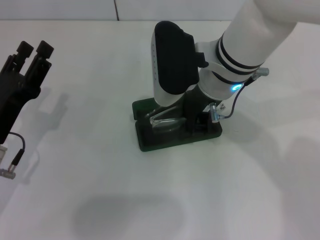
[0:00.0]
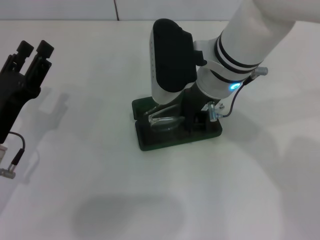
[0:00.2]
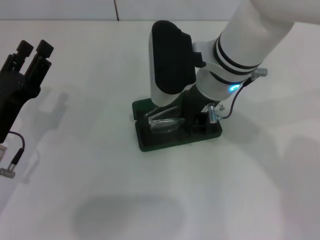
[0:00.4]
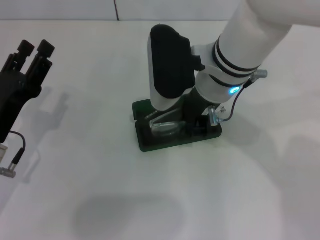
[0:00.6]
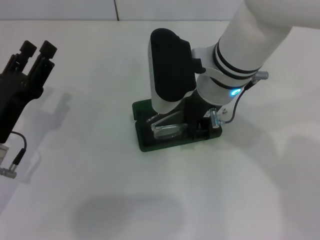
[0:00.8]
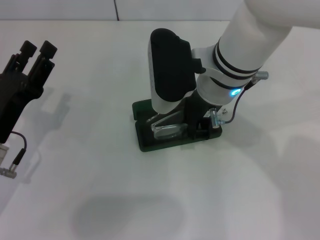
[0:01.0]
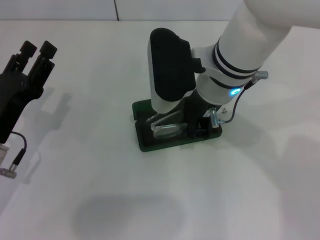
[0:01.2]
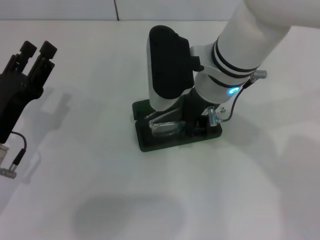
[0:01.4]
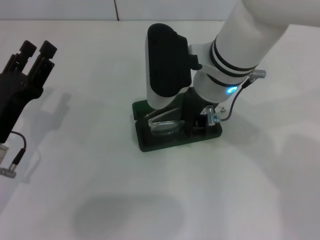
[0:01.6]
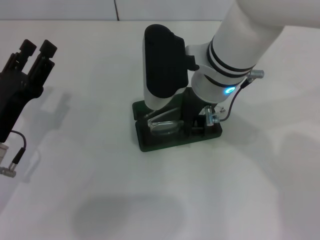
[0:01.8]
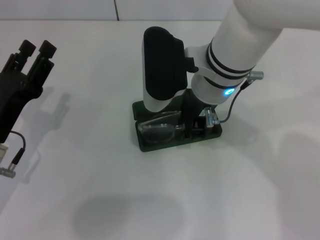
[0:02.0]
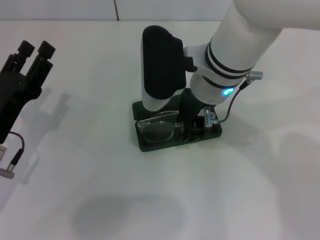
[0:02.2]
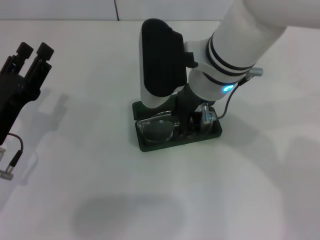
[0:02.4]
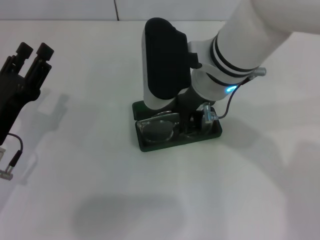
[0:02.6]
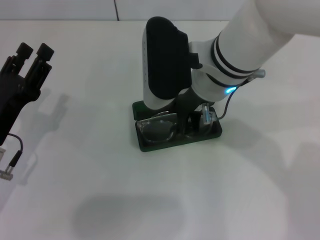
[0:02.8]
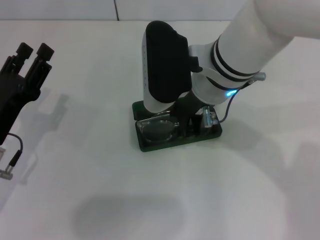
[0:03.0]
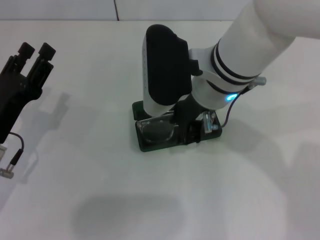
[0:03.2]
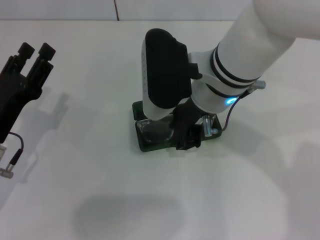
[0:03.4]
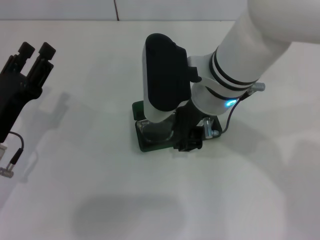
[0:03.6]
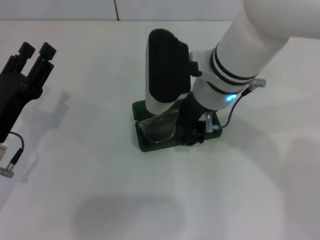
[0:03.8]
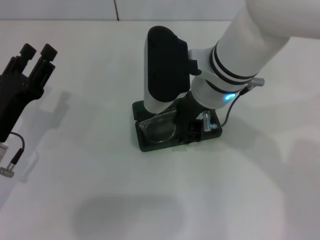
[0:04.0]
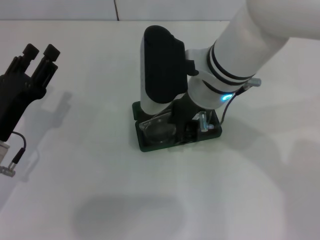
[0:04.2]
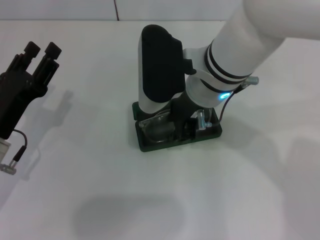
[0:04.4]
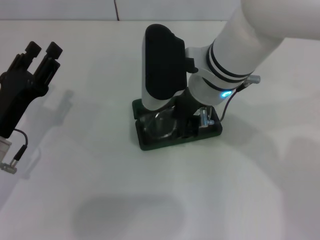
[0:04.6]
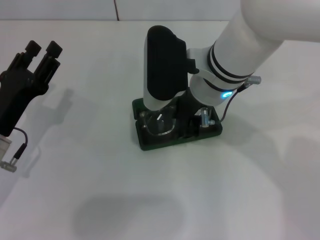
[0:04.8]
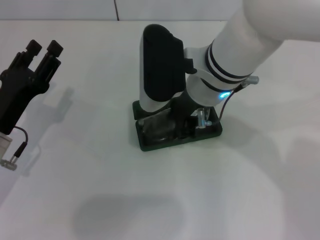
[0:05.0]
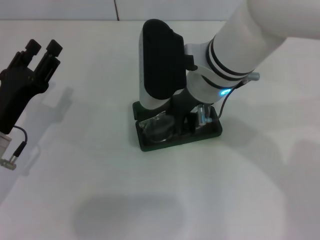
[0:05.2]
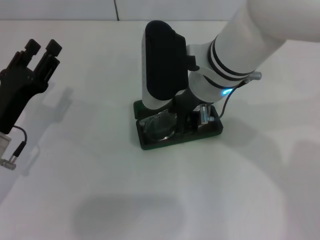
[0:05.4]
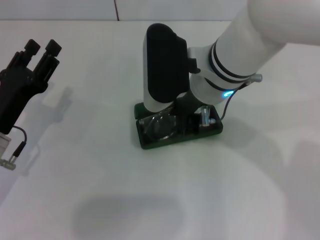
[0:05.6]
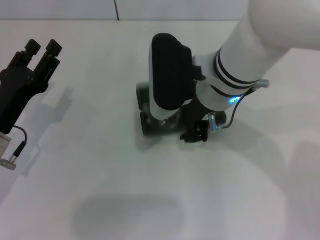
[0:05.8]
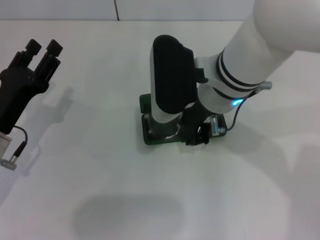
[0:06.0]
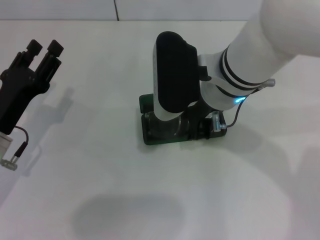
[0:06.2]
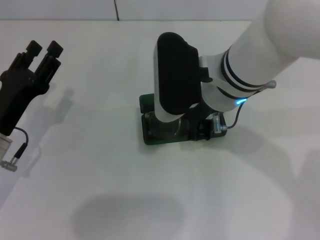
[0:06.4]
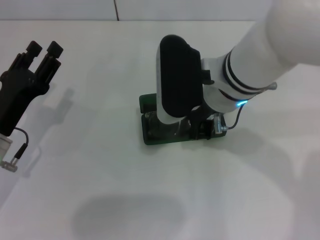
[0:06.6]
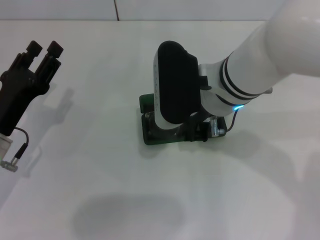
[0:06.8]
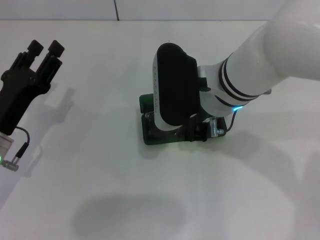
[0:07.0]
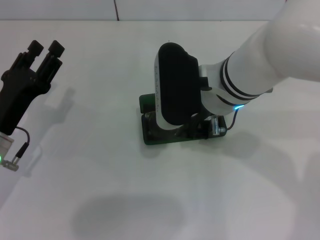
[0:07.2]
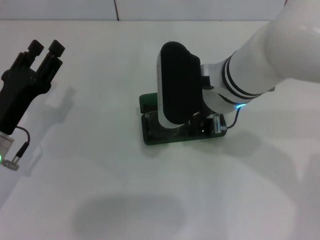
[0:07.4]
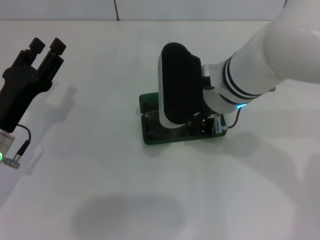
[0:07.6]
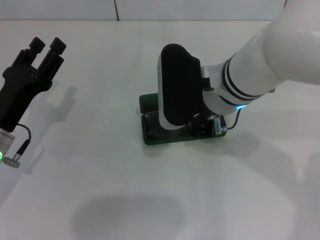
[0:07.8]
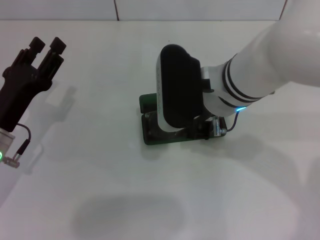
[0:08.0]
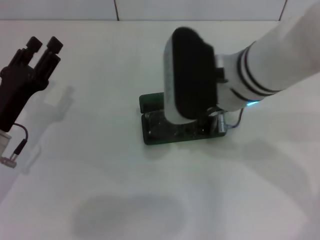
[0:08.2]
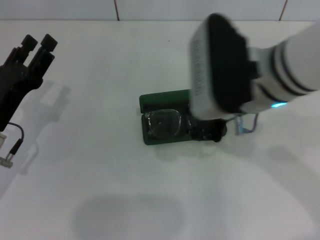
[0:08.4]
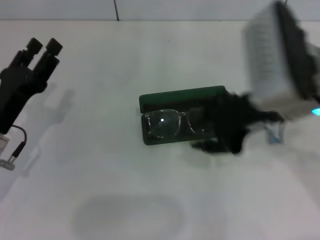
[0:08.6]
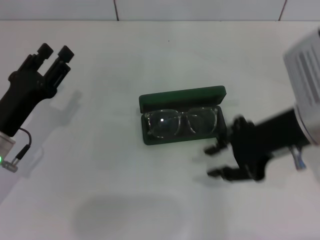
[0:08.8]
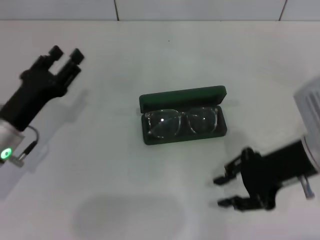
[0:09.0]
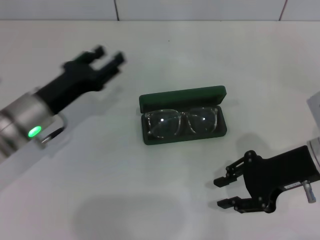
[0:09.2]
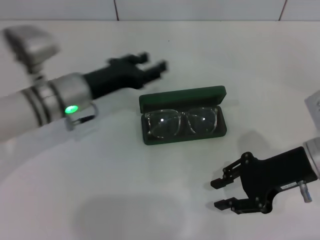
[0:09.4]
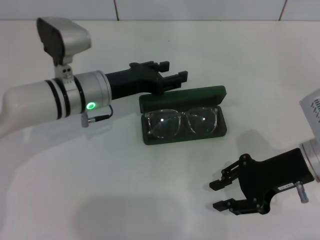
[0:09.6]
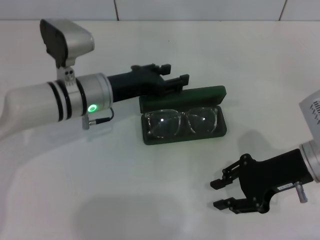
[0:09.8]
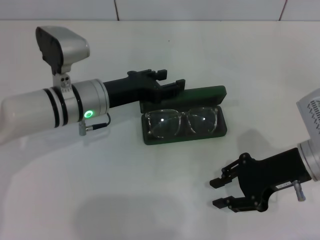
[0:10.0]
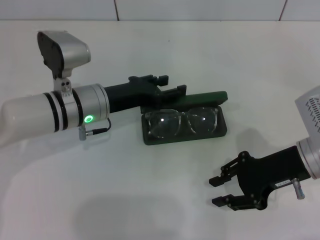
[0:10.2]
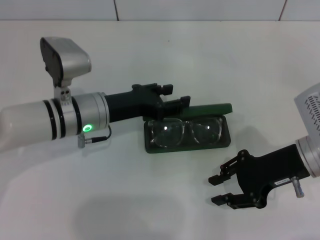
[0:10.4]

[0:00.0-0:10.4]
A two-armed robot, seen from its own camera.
Step, 0.0 to 5.0 s: Put the glasses into the case with your right hand.
0.0 to 1.4 s: Both grippers stay put.
1.4 to 7.4 s: The grippers stay close to where they were, moving slightly.
7.4 to 9.0 s: The right gripper is displaced to the right by about 15 cm.
9.0 to 10.4 s: The left gripper travels to the right and forward by roughly 15 cm.

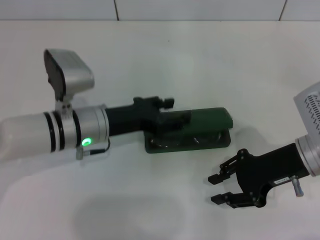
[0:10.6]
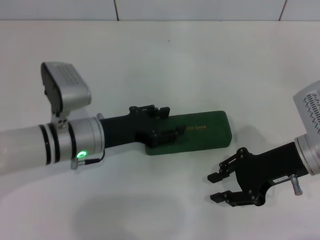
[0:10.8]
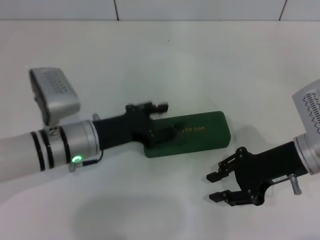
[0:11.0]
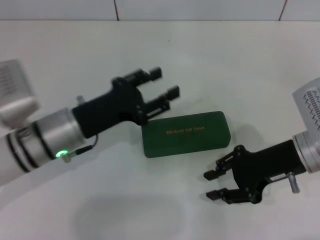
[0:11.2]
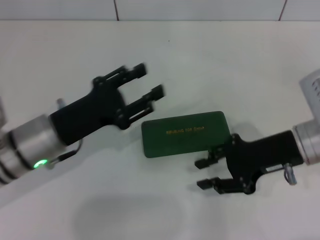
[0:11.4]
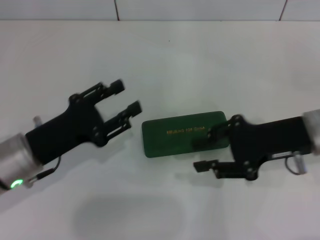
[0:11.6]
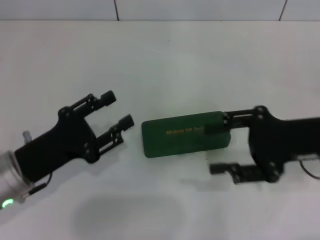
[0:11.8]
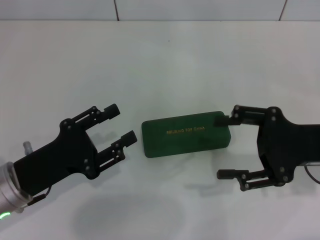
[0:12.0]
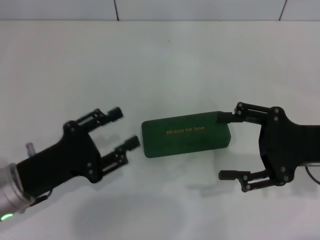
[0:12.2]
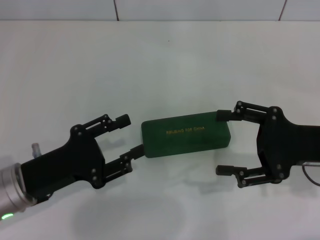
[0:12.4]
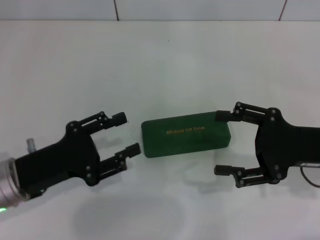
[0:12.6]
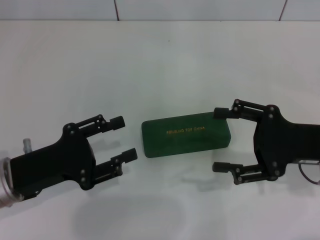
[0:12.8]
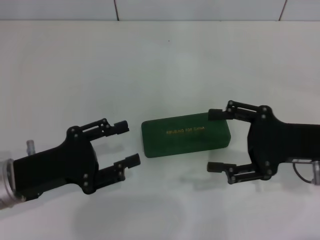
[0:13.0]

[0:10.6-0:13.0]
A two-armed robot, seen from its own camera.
10.6 to 11.8 s: The left gripper heads backward and to the left, covering approximately 15 cm.
11.8 to 13.0 s: The right gripper opens up.

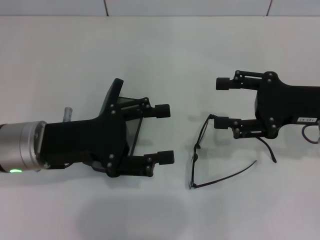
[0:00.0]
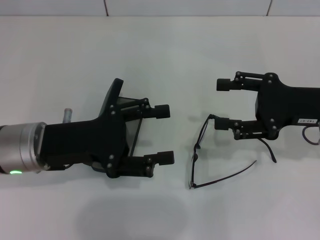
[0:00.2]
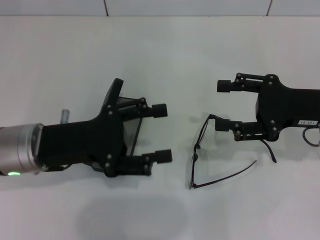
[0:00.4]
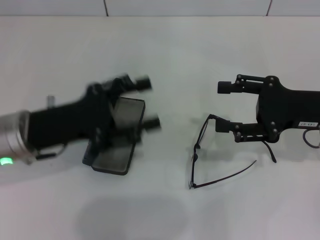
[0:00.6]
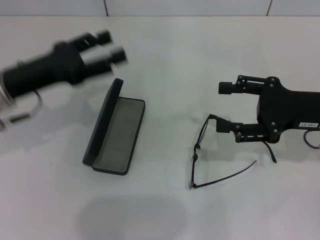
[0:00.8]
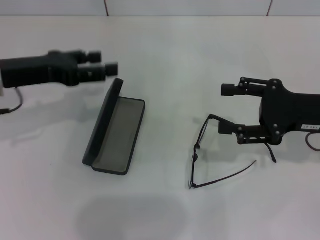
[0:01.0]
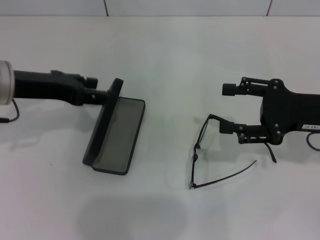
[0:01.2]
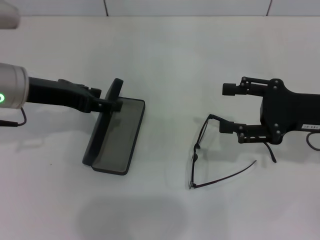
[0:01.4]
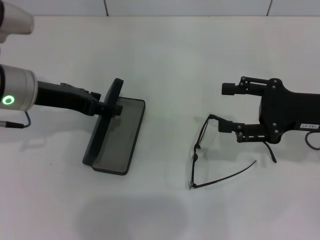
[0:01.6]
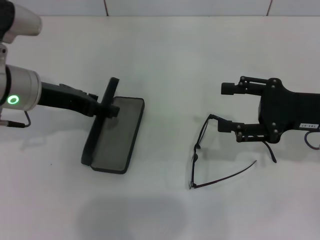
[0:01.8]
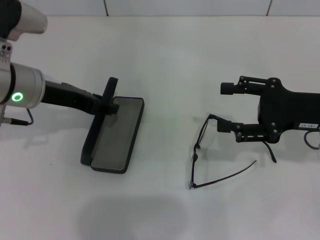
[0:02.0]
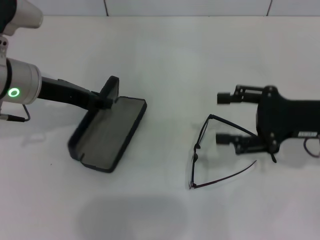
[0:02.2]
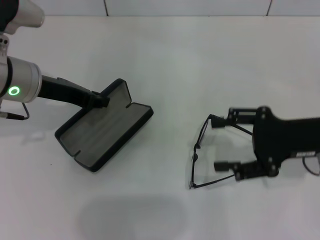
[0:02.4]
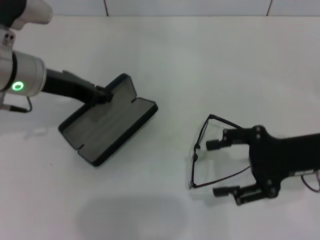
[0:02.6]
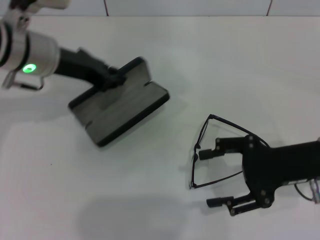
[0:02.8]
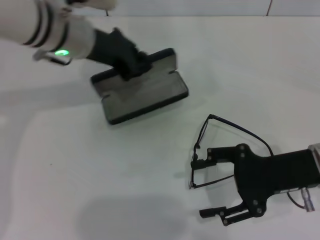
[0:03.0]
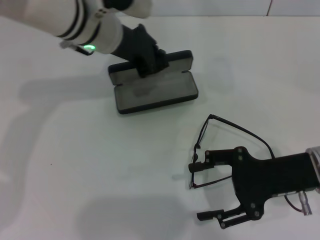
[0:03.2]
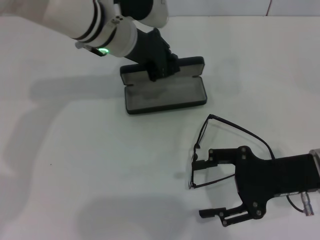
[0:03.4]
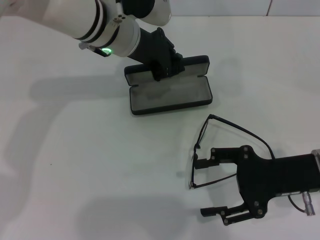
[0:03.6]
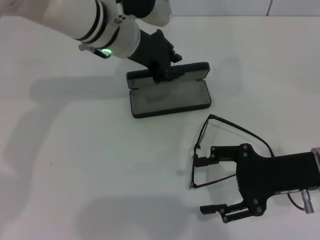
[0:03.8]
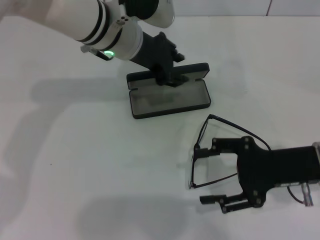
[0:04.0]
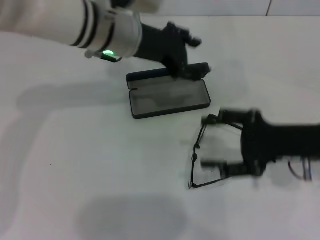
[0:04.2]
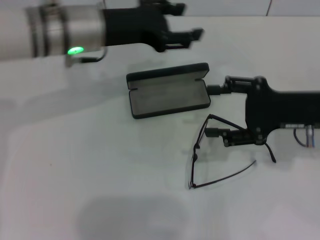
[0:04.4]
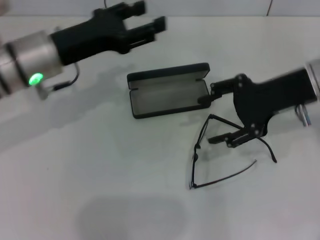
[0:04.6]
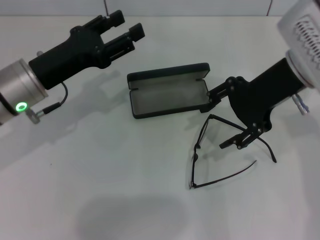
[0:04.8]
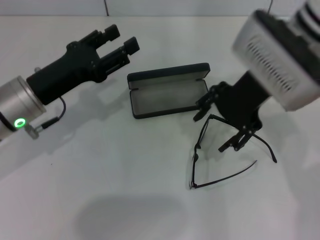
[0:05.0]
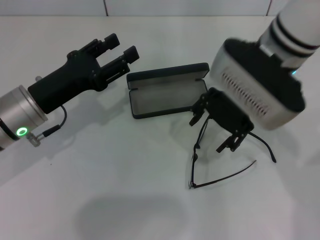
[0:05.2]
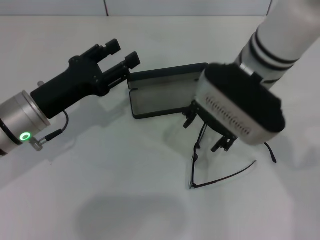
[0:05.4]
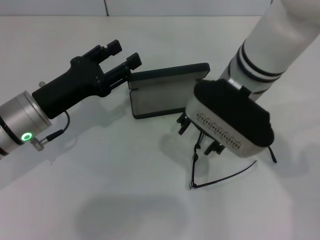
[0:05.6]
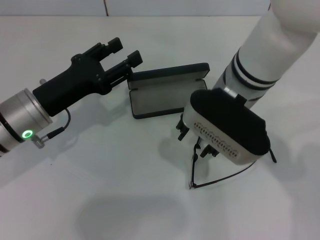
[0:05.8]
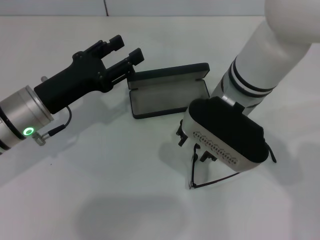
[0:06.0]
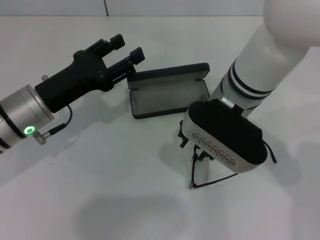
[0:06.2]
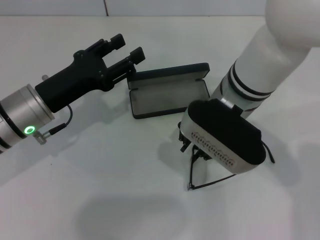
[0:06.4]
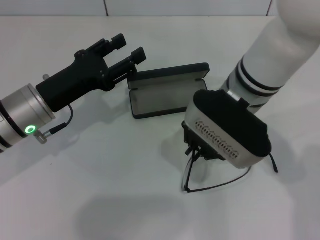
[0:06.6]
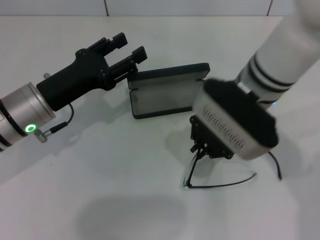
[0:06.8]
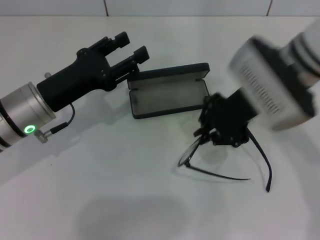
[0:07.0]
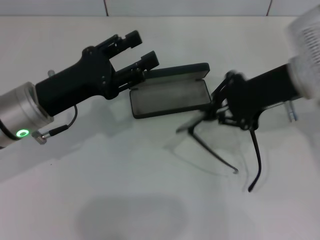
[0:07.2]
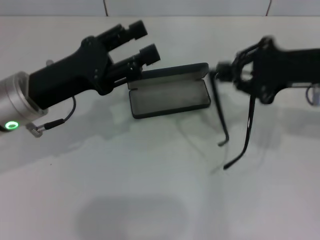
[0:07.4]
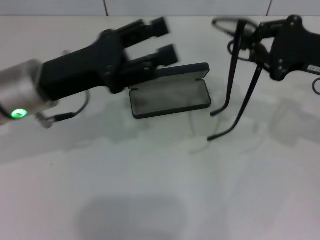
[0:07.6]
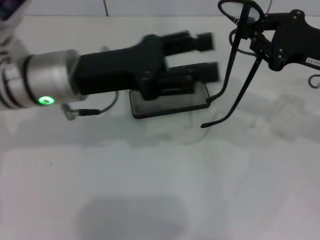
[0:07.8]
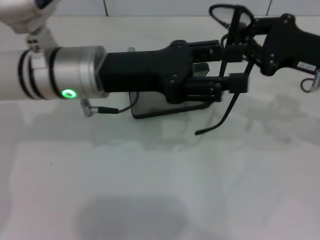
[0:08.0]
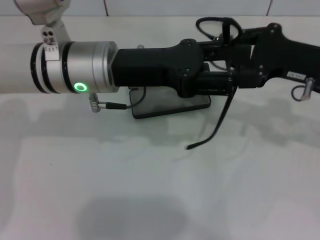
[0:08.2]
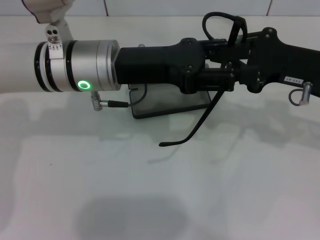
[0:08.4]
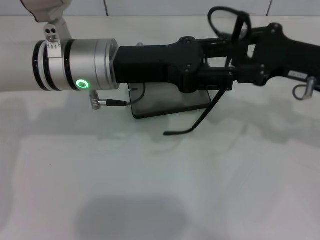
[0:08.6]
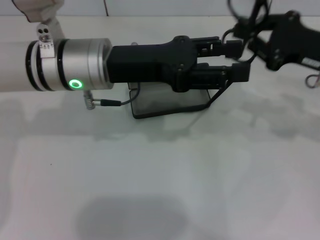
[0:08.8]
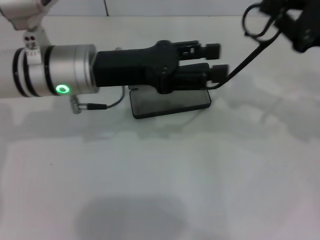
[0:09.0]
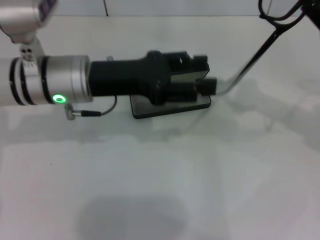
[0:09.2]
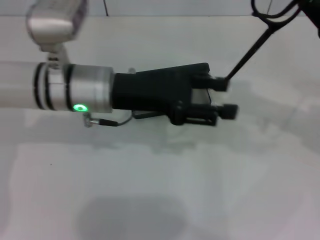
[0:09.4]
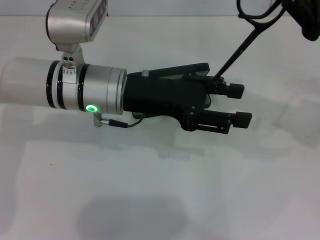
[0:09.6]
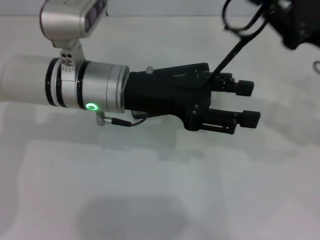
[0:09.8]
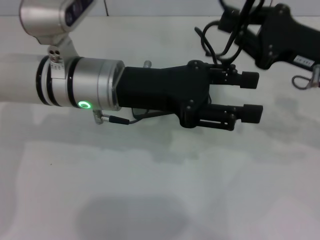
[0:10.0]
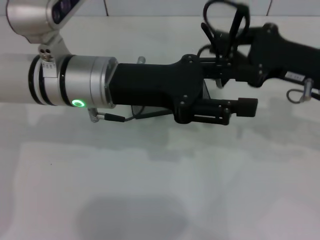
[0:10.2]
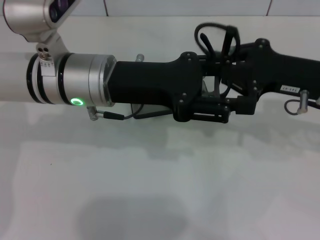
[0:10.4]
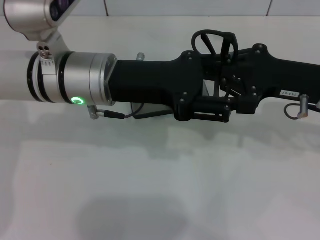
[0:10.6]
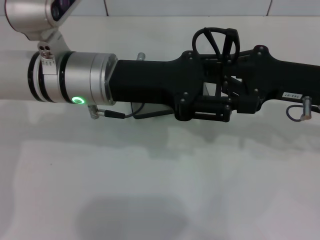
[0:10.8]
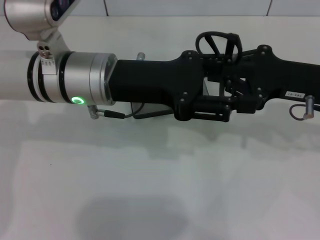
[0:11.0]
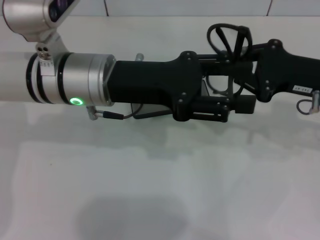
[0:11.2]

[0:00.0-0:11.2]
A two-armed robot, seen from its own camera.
Step, 0.0 to 2.0 s: Grab the glasses case with your left hand.
Step, 2.2 to 3.8 s: Place the glasses case in the center of the table with your left hand.
Step, 4.0 to 6.4 s: Grab the eyeglass frame with your right hand.
Step, 6.6 to 11.0 s: Fold the frame with your left hand.
0.0 to 1.6 s: The left gripper goes some 5 cm forward.
1.6 to 3.2 s: The left gripper shifts roughly 15 cm to the right and forward, and closes. Meanwhile the right gripper shifts by roughly 5 cm.
3.2 to 4.8 s: The left gripper travels to the left, backward and downward by roughly 15 cm, and opens up. The right gripper travels upward, forward and to the left by approximately 15 cm.
4.8 to 6.4 s: The right gripper shifts about 10 cm to the left and downward, and closes up.
6.4 to 8.0 s: The right gripper moves to the right, approximately 20 cm. The left gripper moves to the right and upward, approximately 10 cm.
